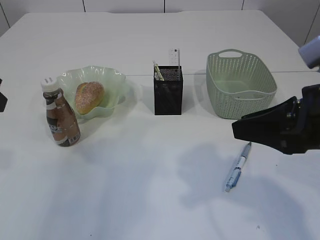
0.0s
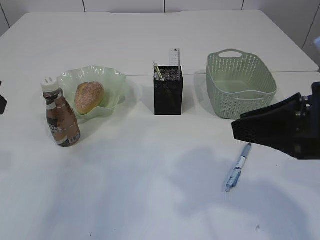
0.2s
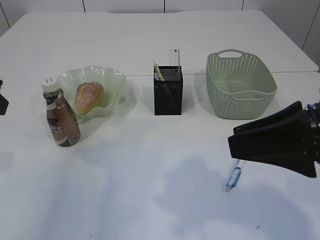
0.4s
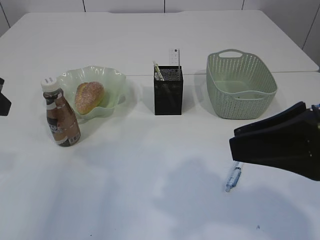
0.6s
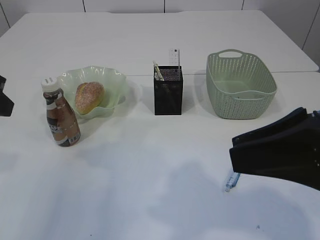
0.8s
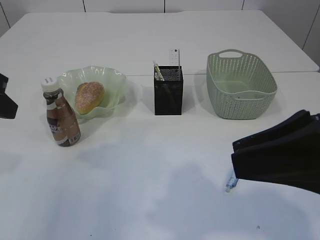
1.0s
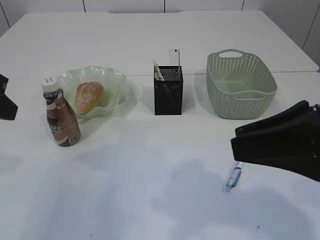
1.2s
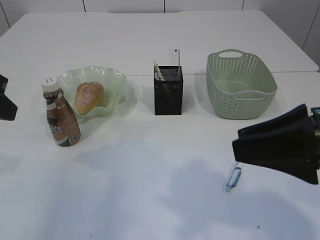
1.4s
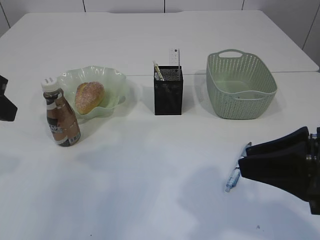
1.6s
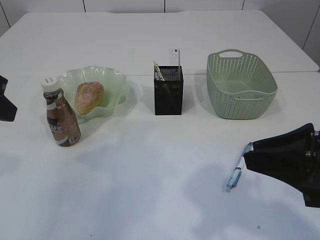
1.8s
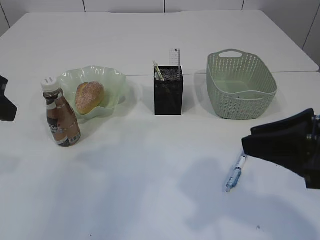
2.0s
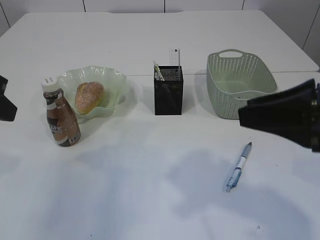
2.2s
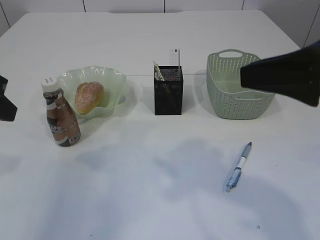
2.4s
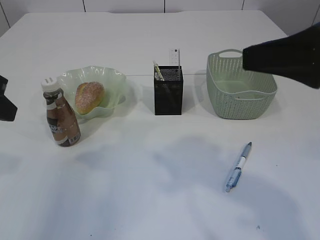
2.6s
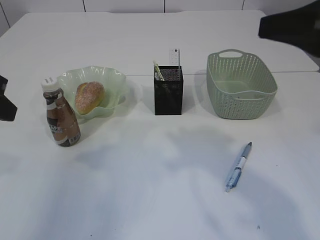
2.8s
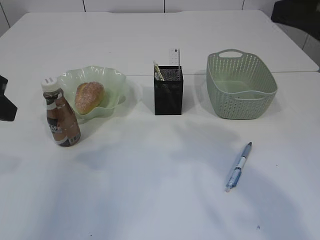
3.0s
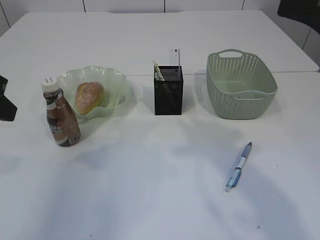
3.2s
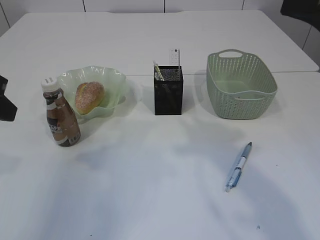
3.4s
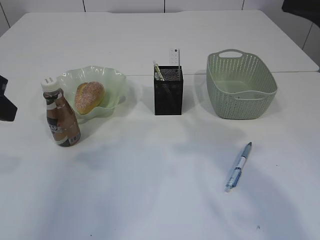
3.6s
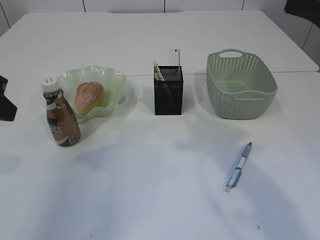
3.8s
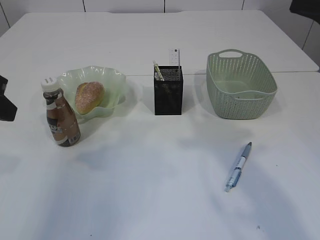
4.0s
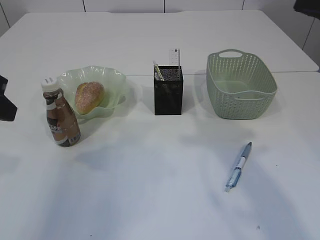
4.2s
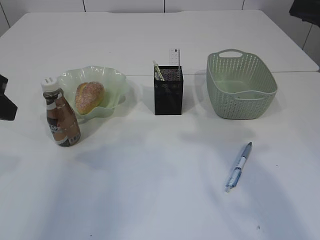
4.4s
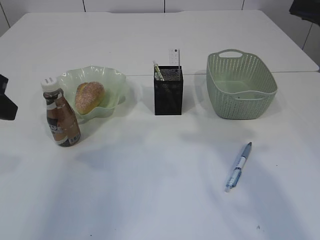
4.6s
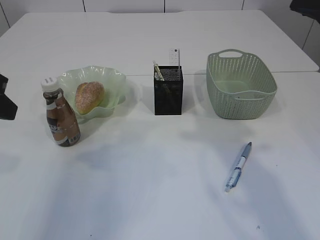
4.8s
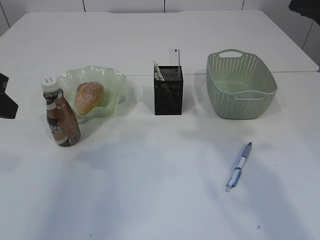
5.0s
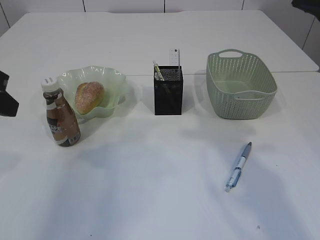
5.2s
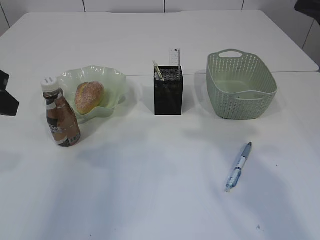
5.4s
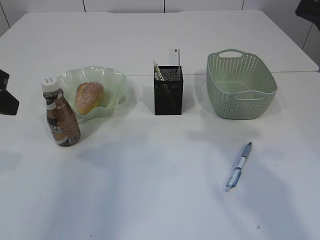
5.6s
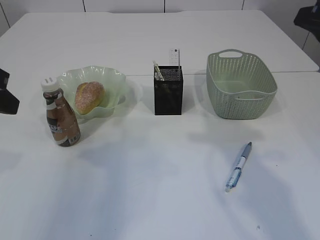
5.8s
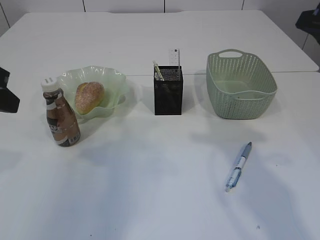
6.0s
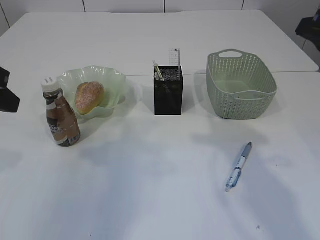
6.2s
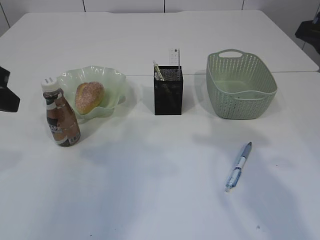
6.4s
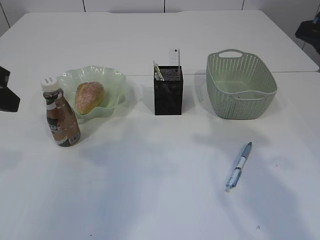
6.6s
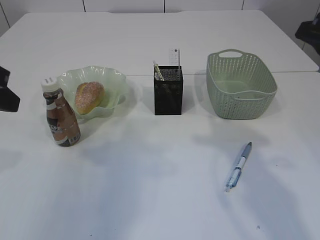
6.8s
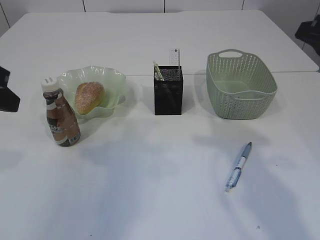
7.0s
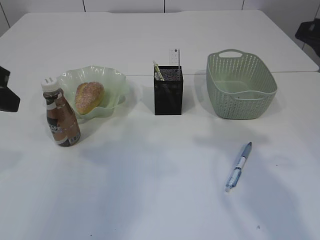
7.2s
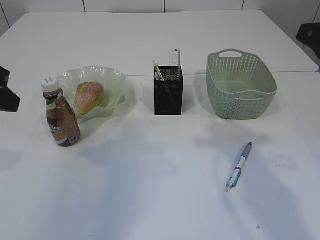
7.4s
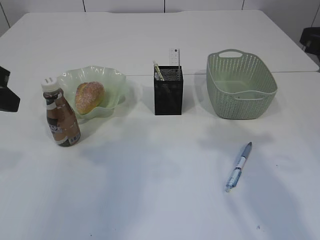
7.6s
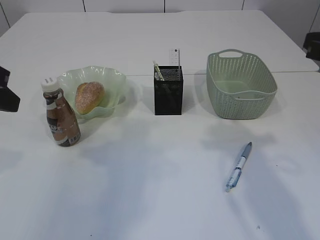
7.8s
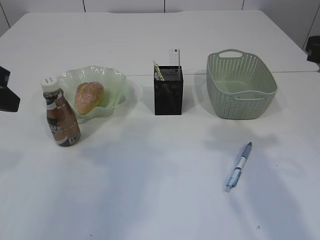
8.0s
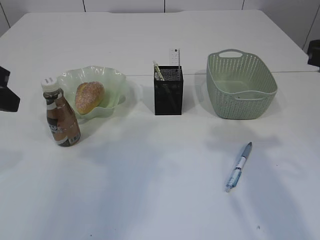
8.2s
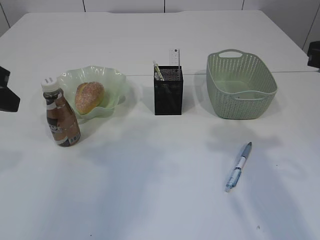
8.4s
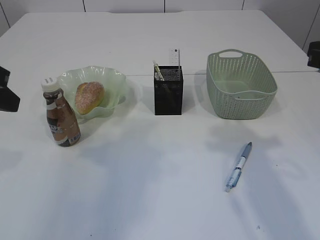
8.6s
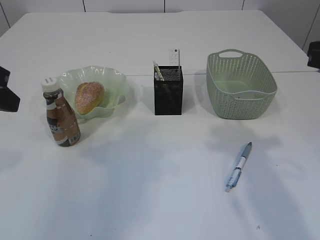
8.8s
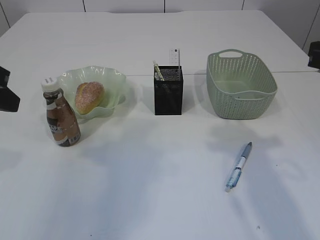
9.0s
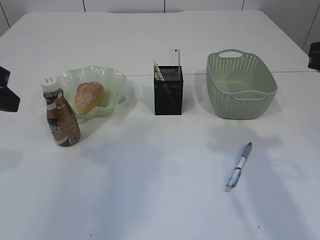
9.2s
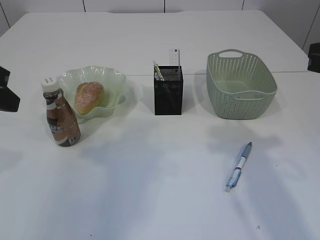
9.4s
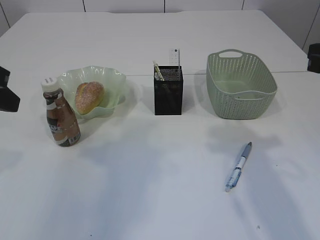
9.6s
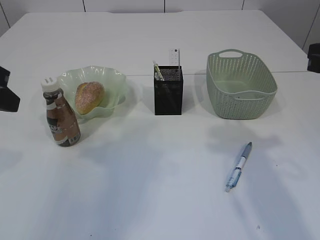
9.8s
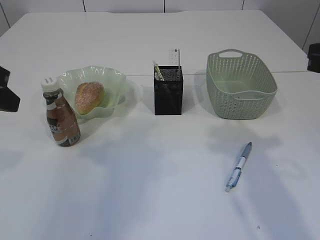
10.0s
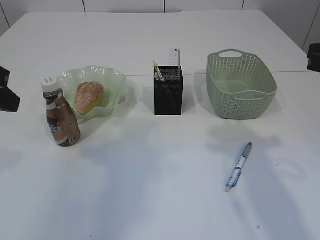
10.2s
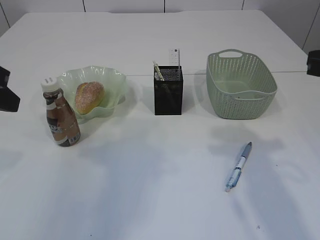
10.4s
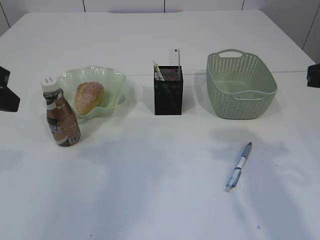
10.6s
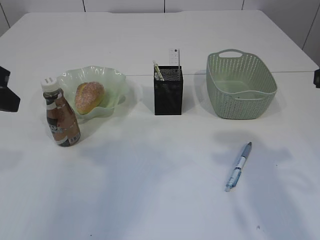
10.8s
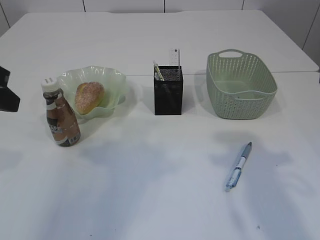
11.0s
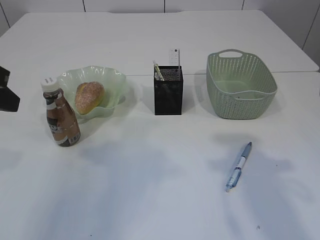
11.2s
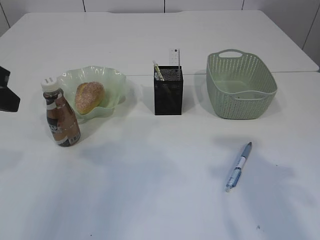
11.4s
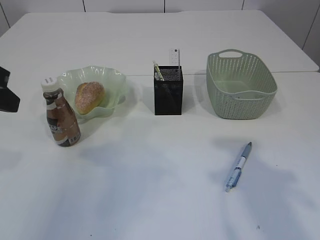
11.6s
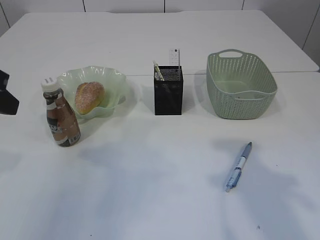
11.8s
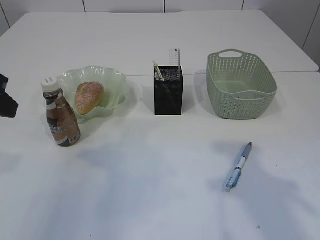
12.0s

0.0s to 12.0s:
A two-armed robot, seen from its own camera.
1.6s to 3.0s: The right gripper travels upward and forward by roughly 10 cm.
3.0s to 4.4s: The grippers make only small movements.
4.4s to 7.6s: The grippers move only a little.
9.0s to 10.4s: Both grippers stay about where they are.

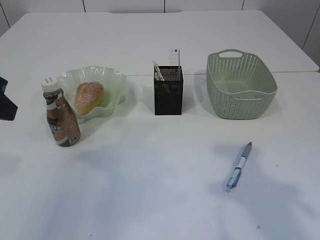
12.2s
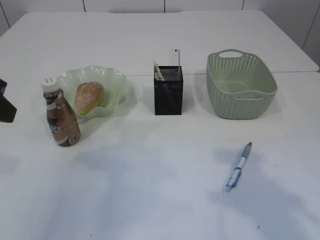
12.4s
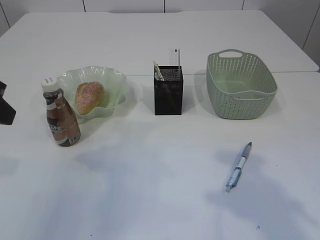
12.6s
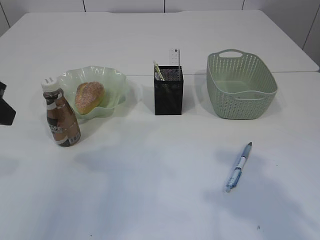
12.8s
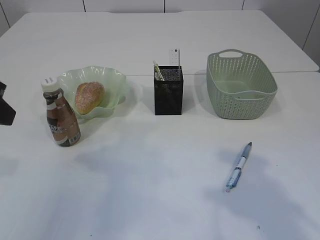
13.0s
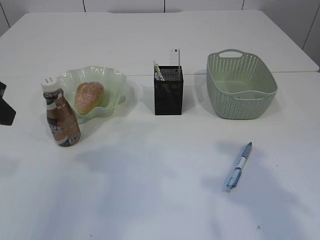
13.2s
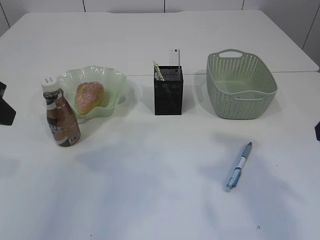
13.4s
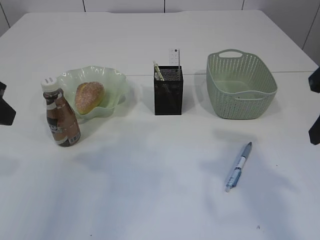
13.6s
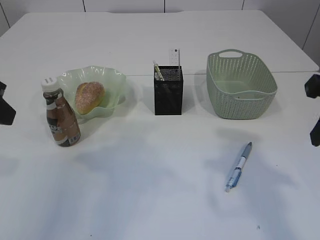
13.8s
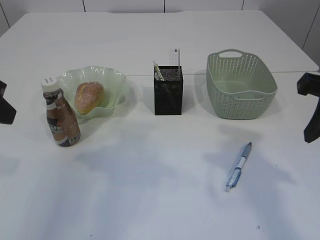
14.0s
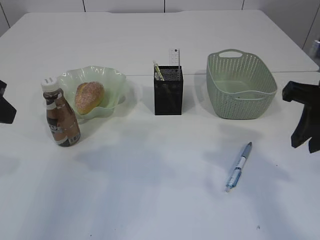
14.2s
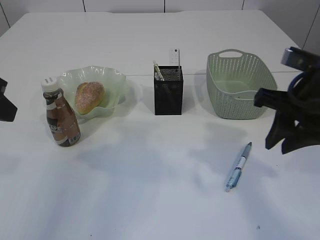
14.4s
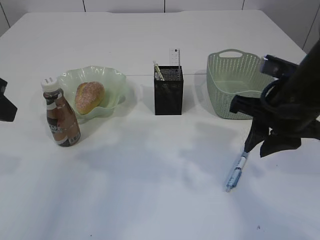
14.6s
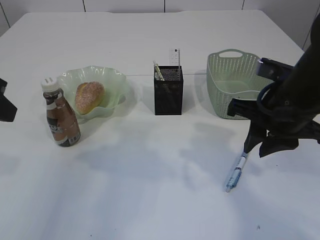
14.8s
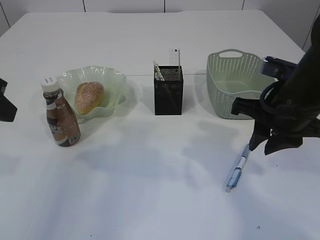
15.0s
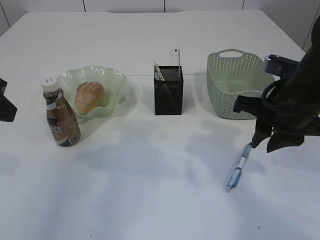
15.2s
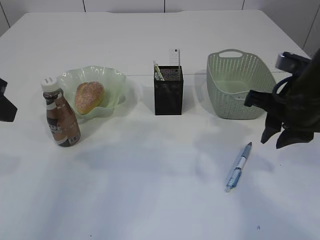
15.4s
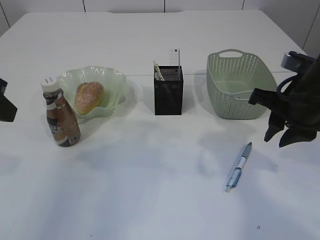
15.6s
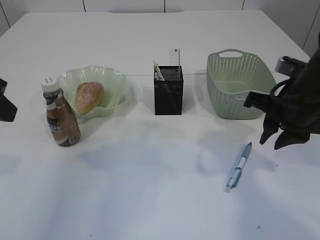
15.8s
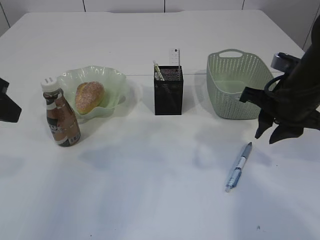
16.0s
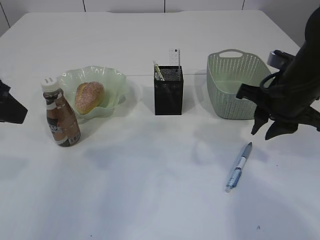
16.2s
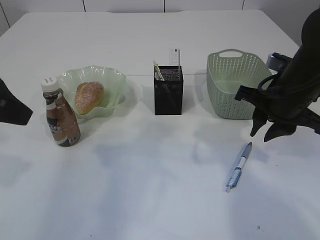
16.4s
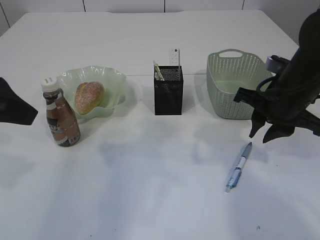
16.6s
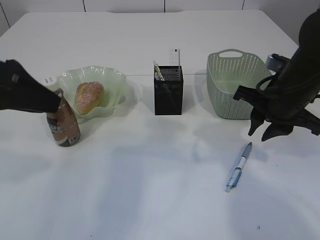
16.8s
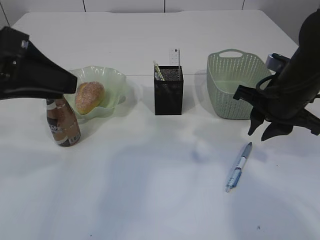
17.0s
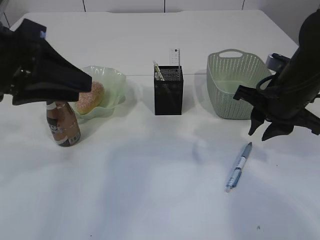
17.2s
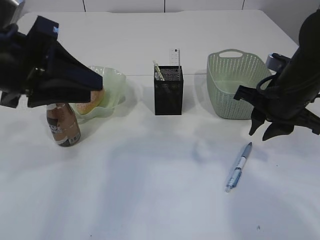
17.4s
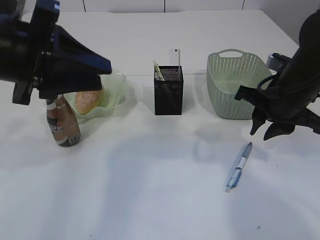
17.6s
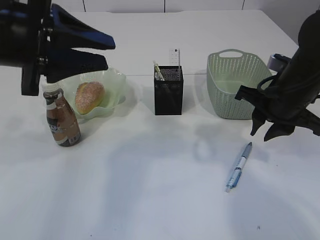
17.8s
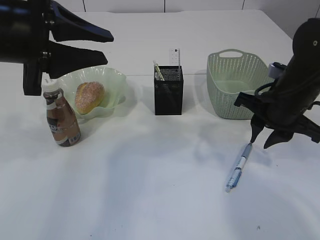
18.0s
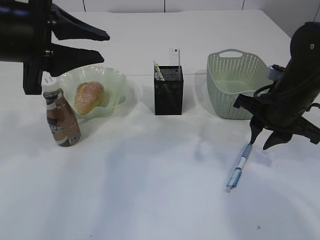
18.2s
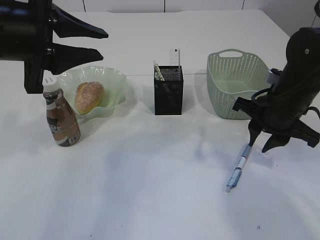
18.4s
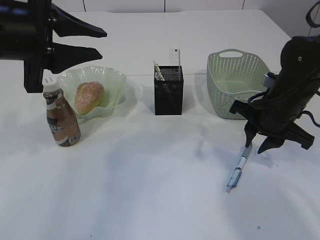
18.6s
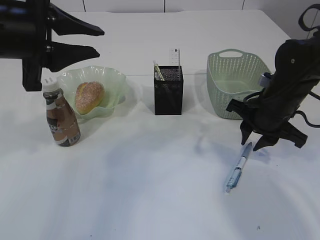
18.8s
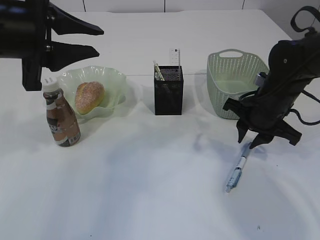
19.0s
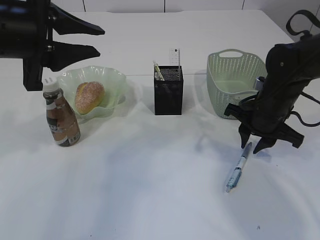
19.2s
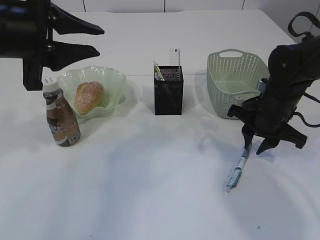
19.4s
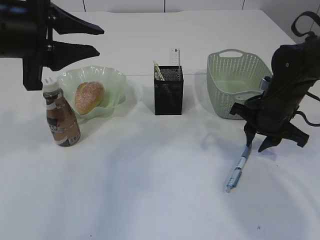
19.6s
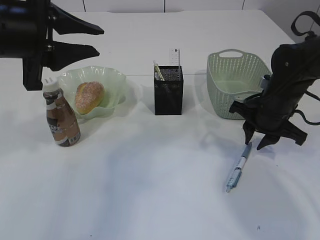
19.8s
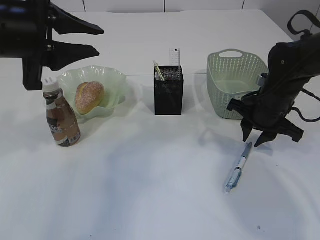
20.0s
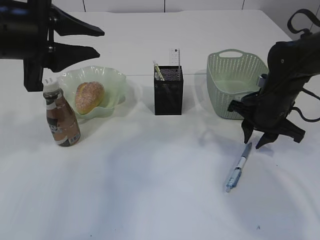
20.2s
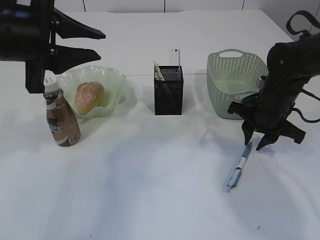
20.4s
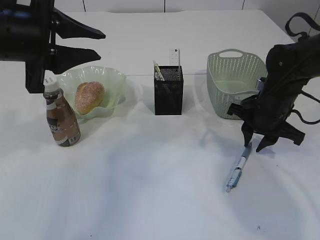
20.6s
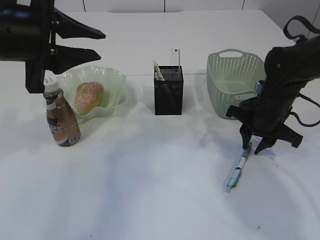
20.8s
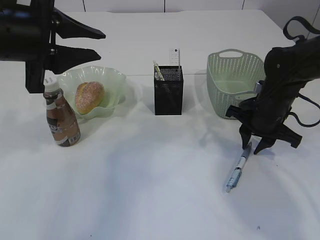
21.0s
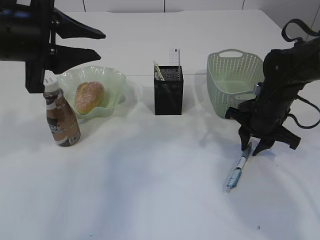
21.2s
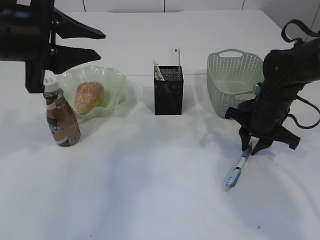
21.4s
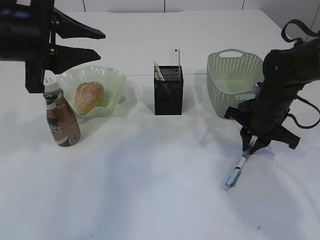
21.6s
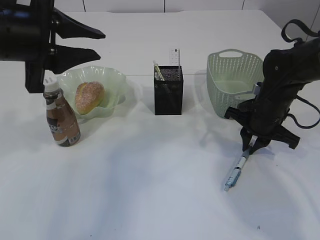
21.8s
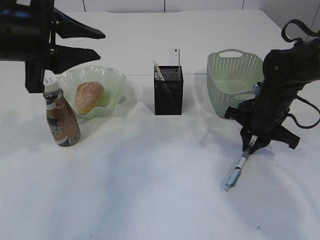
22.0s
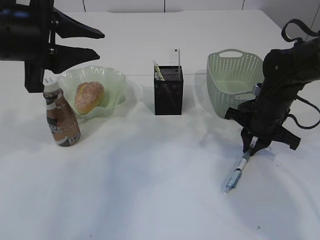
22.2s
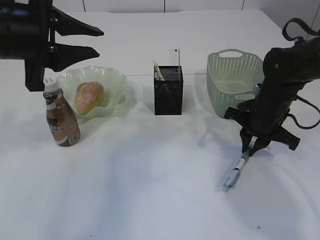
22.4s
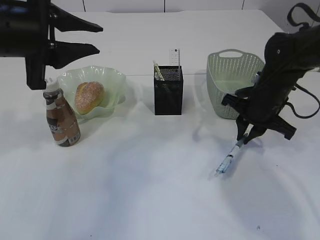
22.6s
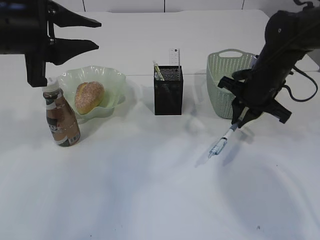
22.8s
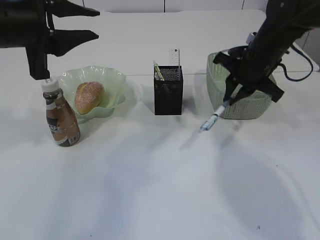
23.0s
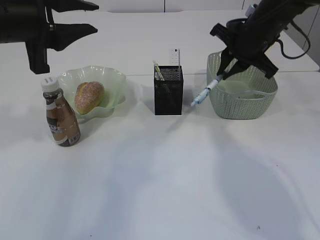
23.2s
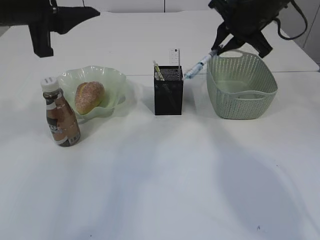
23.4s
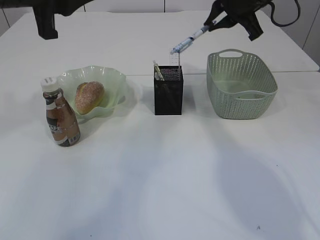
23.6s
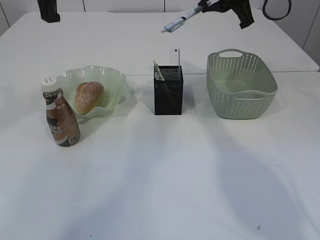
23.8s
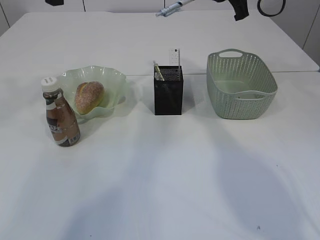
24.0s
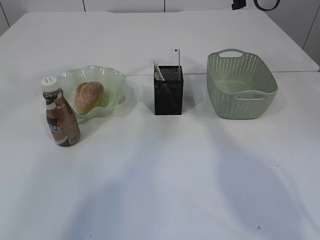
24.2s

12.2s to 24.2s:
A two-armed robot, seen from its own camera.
Step, 12.2s to 22.8s: Pick up the pen with right arm.
12.2s to 13.8s: The right gripper travels forward by roughly 5 cm.
13.8s to 15.2s: The right gripper shifts approximately 10 cm downward, forward and to the left.
15.2s to 16.6s: The right gripper changes place by about 5 cm.
16.6s to 18.2s: The left gripper shifts by some 5 cm.
18.2s to 19.8s: The right gripper moves roughly 5 cm.
19.8s to 22.6s: There are only small adjustments of the grippers.
22.6s to 24.2s: The left gripper heads forward and upward, covering approximately 15 cm, while the right gripper heads upward and forward, covering roughly 20 cm.
